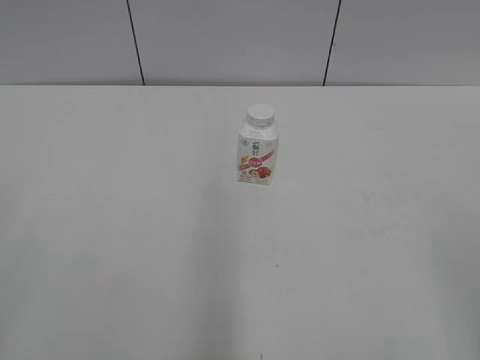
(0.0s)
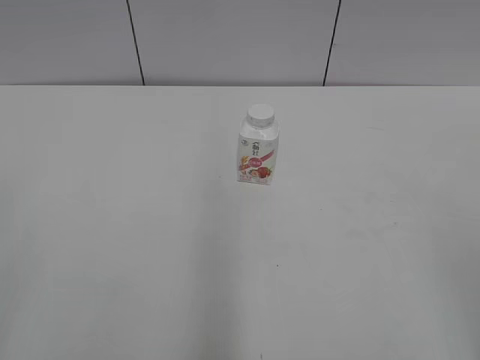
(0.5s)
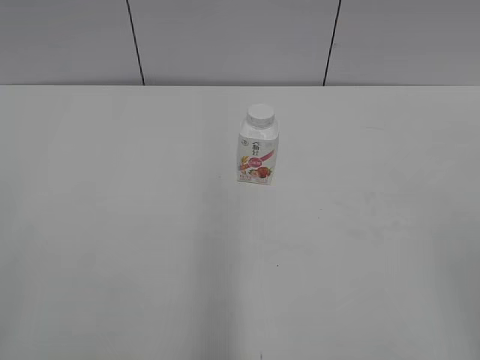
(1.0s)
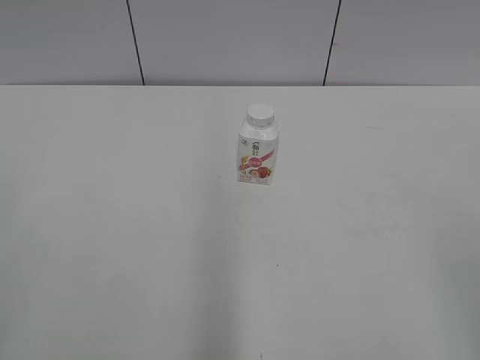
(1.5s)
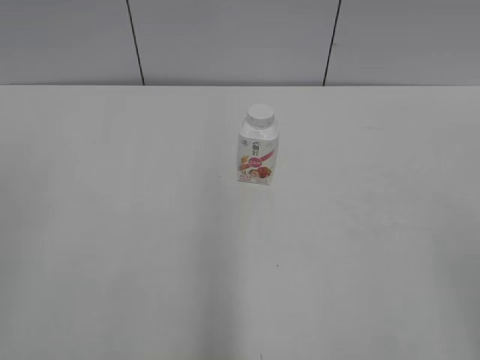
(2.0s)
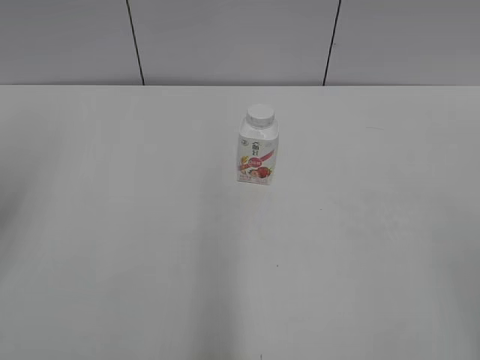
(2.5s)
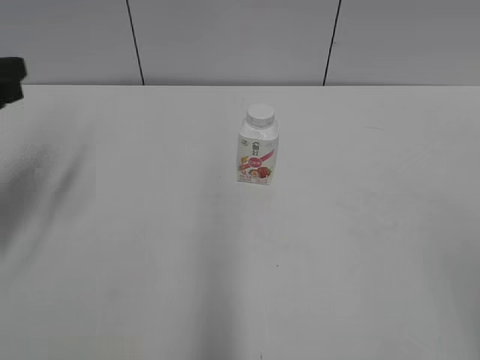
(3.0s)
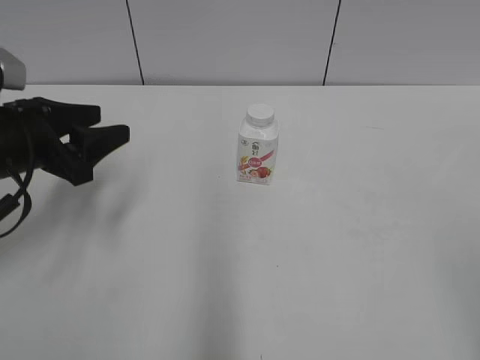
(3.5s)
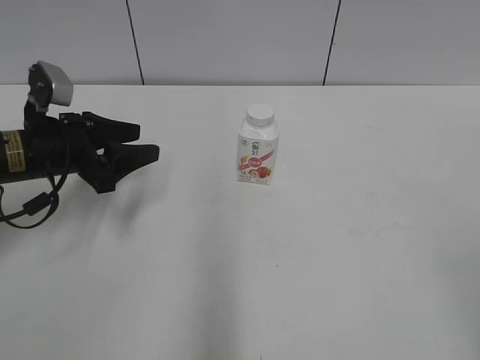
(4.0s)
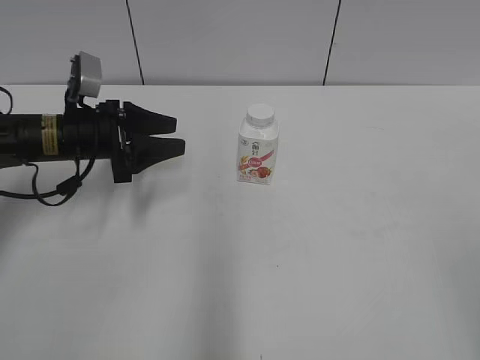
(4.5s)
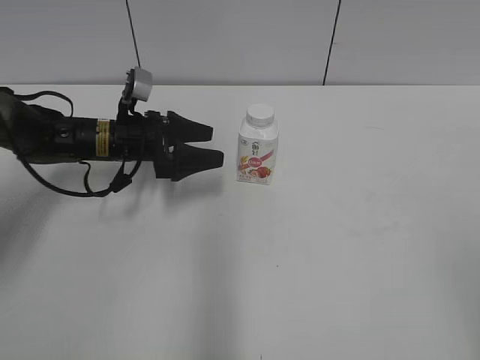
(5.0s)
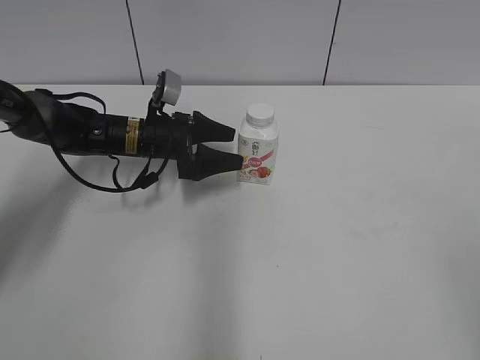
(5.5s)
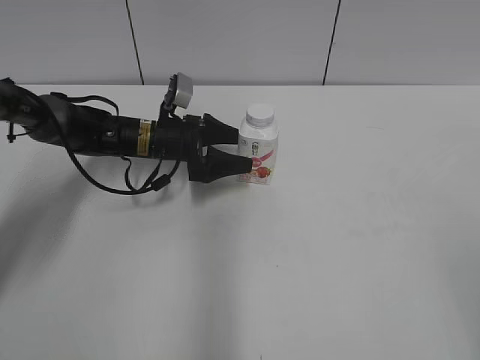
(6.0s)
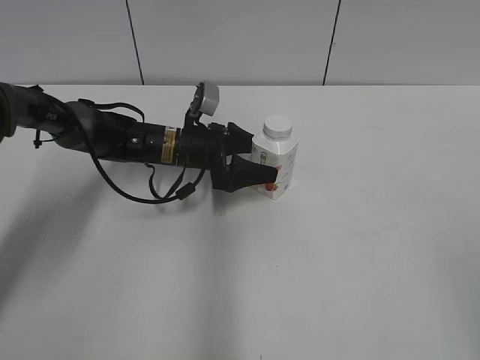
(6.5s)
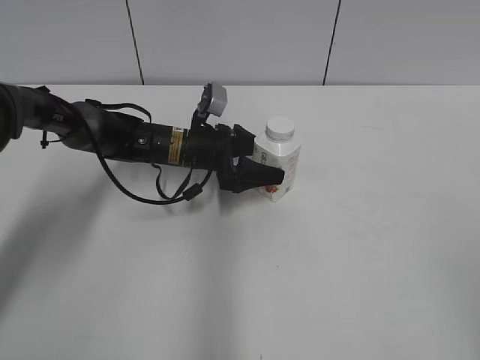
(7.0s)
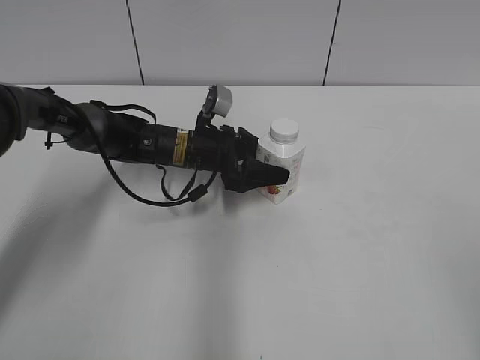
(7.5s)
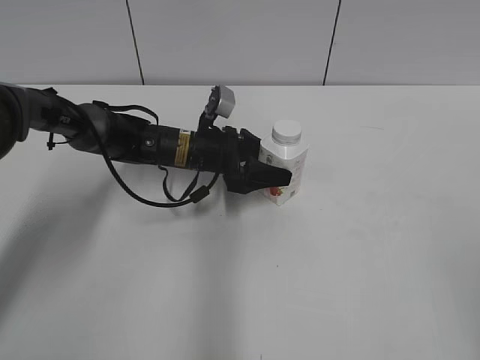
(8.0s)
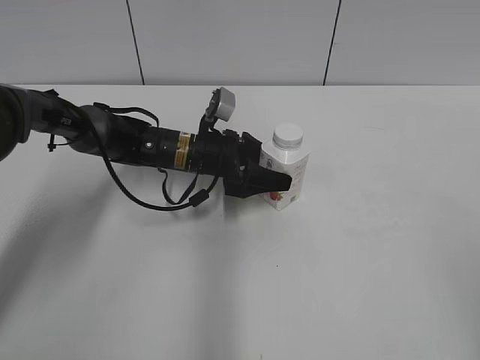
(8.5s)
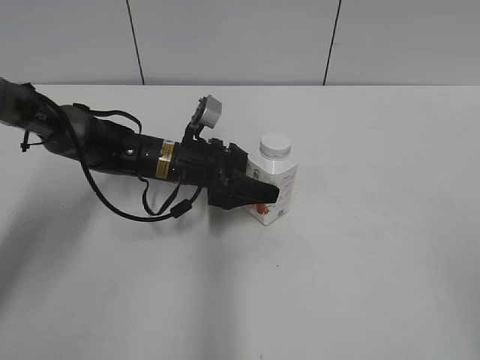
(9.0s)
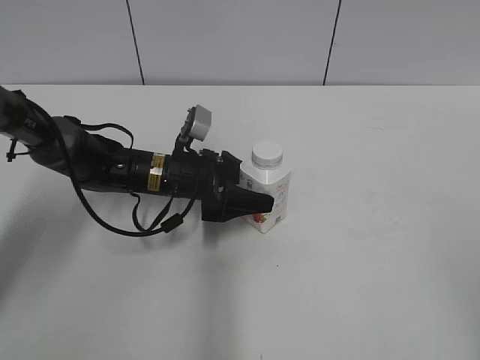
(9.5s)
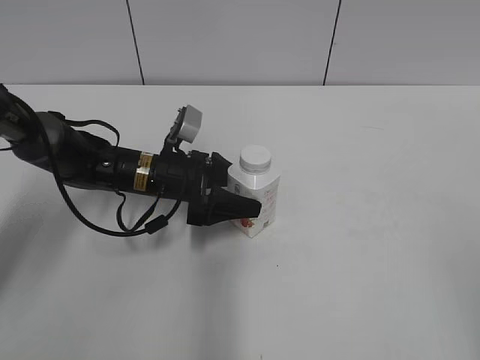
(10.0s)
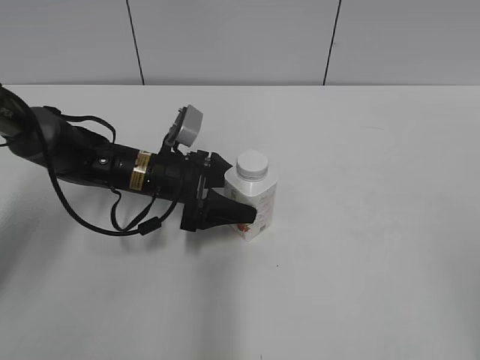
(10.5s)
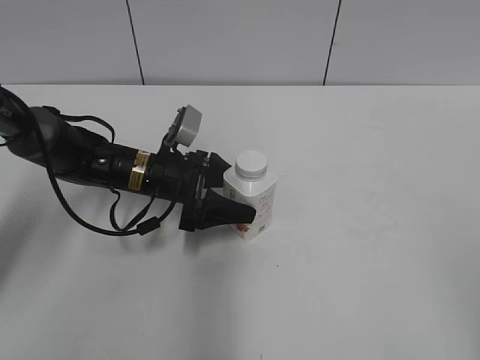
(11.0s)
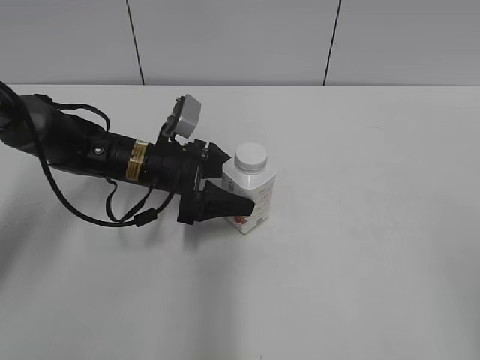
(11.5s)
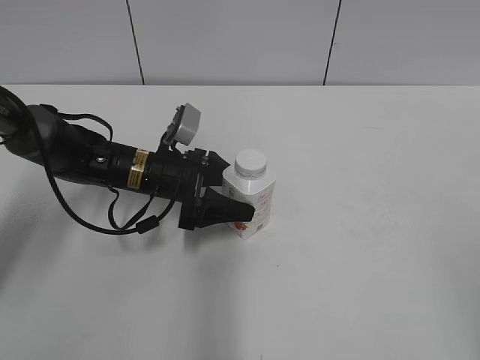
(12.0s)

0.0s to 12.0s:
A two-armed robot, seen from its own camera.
Step, 0.0s to 6.5s: Grab the Yili Changqing with the left hand.
2.0s to 4.0s: The left gripper heads forward and downward, covering approximately 35 cm.
4.0s to 6.0s: The left gripper moves forward, to the right and downward, roughly 20 cm, and opens.
6.0s to 8.0s: The left gripper heads to the right, covering roughly 5 cm.
8.0s to 10.0s: The left gripper travels backward by about 5 cm.
10.0s to 12.0s: There are only small adjustments of the grippers.

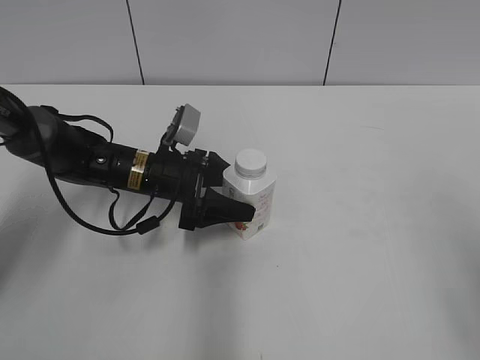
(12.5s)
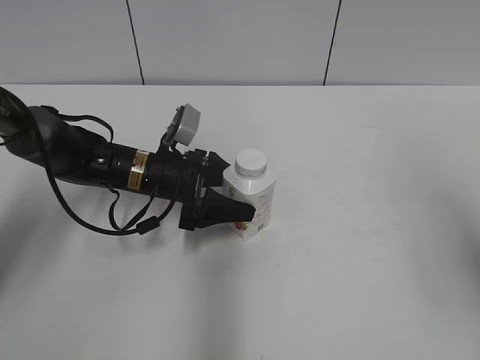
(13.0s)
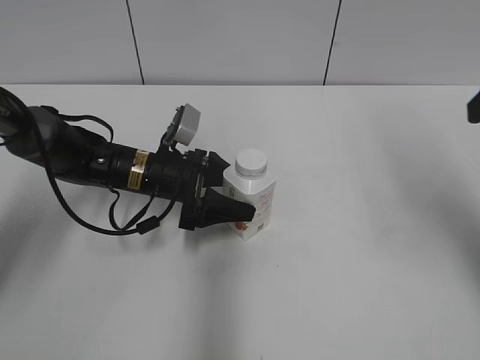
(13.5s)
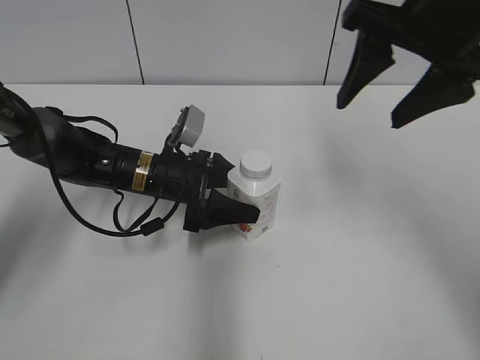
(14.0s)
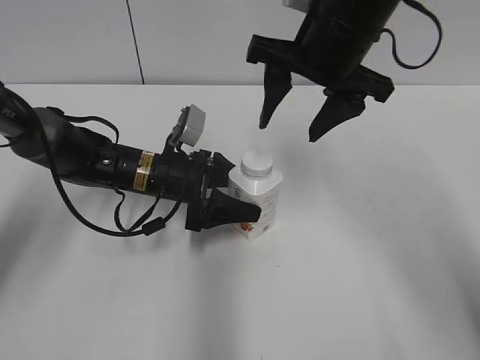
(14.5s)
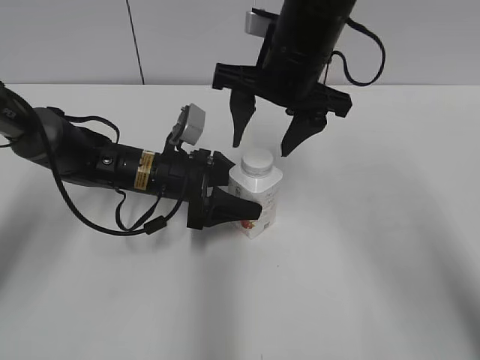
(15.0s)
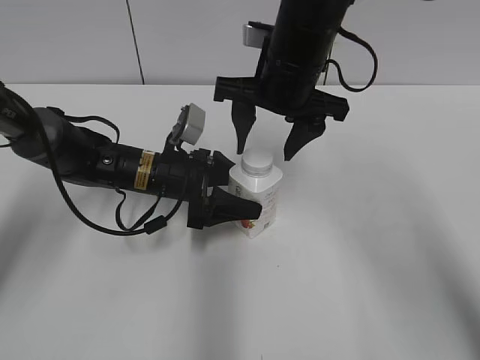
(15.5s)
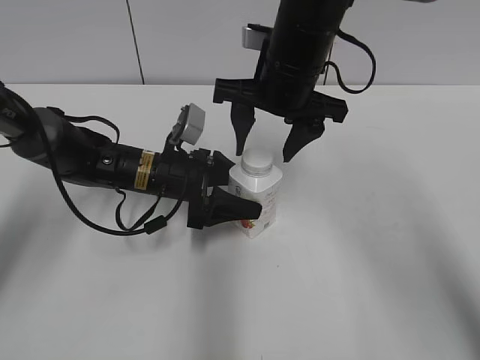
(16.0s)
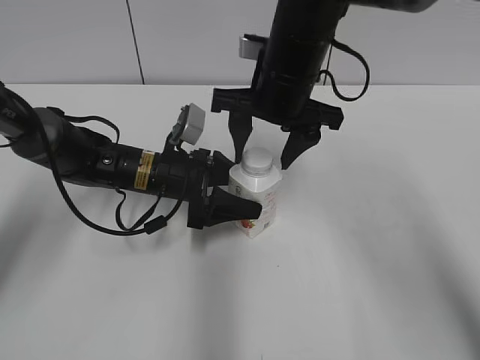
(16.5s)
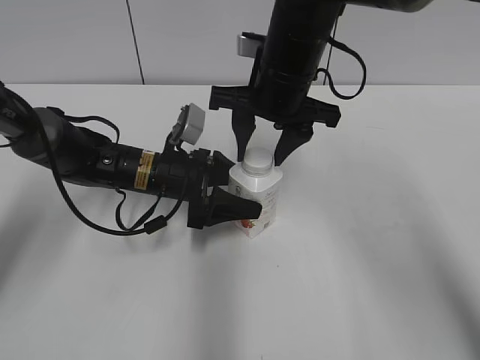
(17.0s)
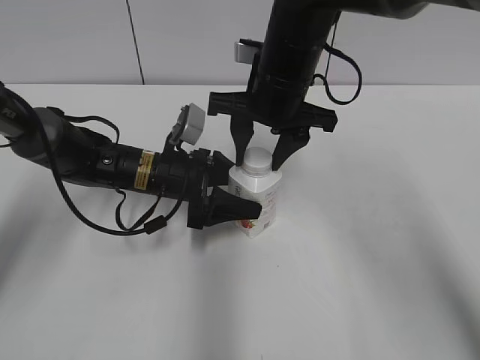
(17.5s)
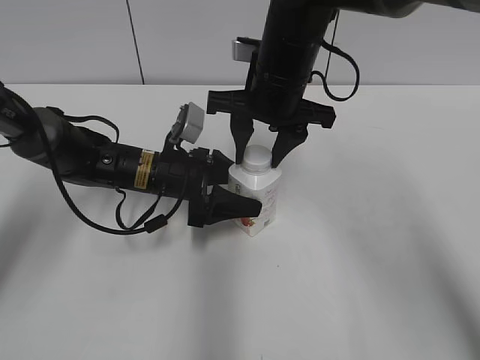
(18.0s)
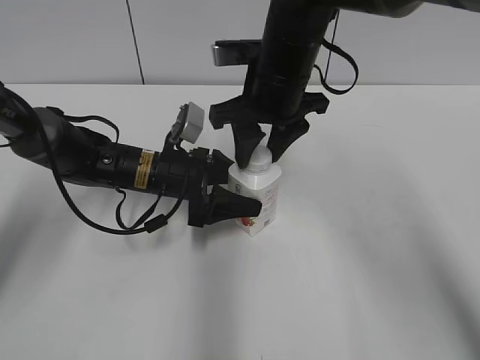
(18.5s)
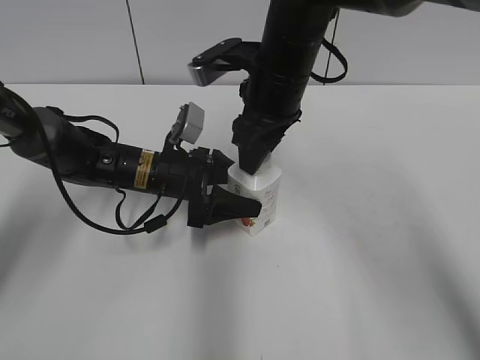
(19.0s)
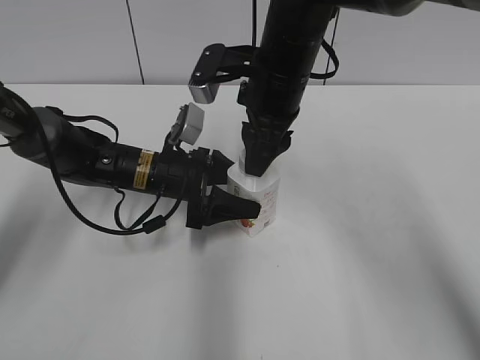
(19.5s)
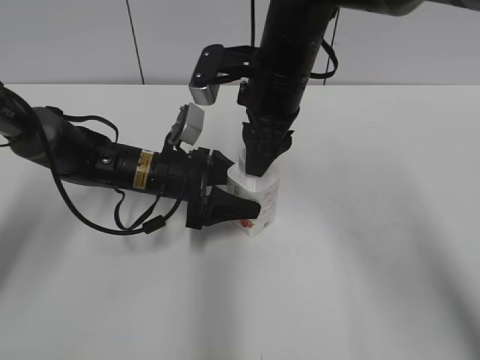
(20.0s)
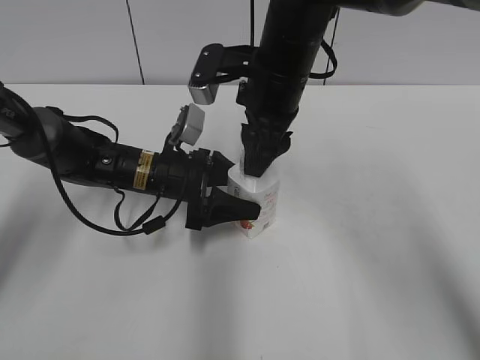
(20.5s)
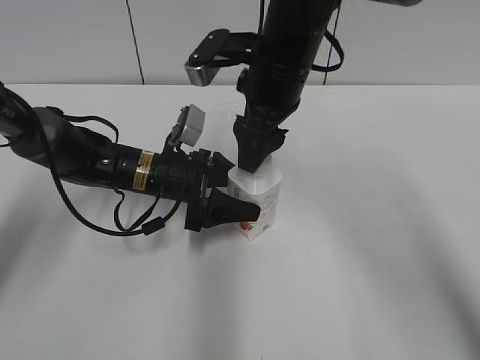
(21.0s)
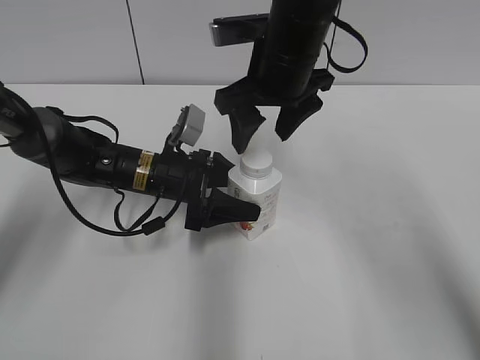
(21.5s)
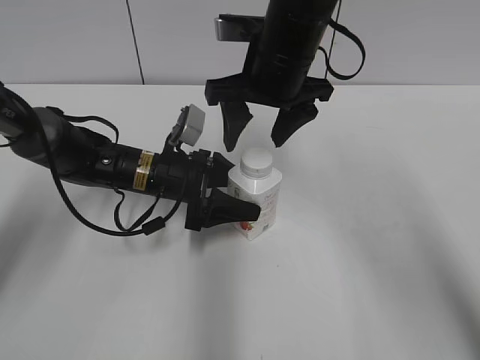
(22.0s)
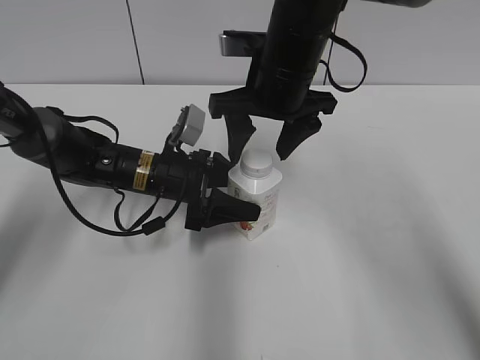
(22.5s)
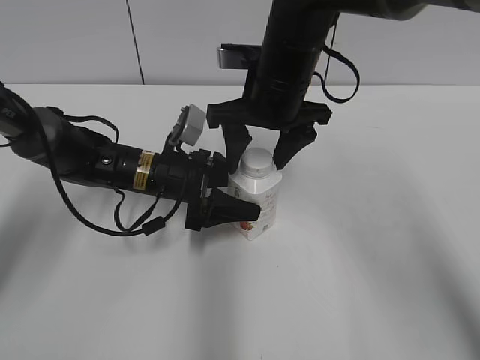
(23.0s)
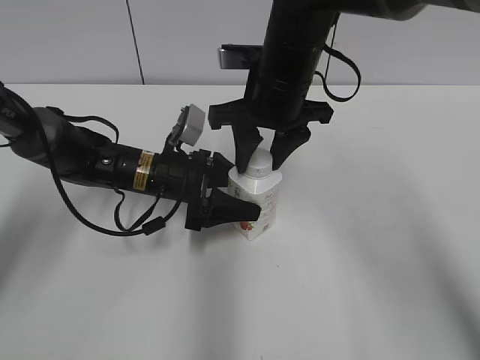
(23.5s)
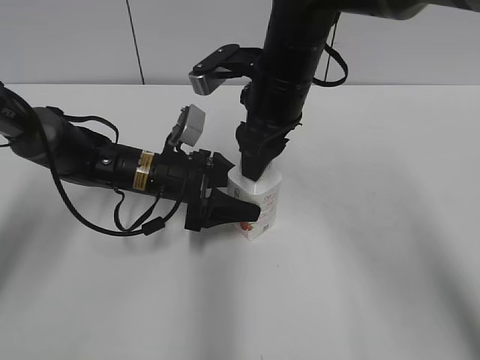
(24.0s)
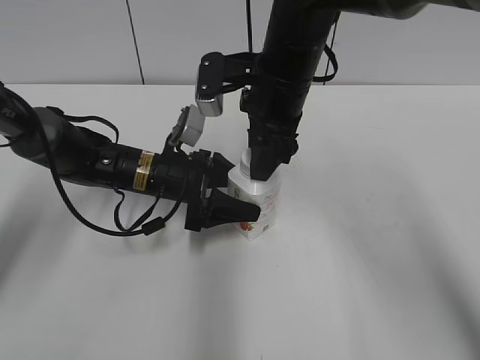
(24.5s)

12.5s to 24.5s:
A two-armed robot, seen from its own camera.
12.5s to 14.5s: The right gripper moves forward and to the left, approximately 35 cm.
14.5s to 16.5s: The right gripper shifts about 5 cm downward.
16.5s to 18.5s: The right gripper closes up.
20.5s to 22.5s: The right gripper opens up.
22.5s to 24.5s: The right gripper closes.

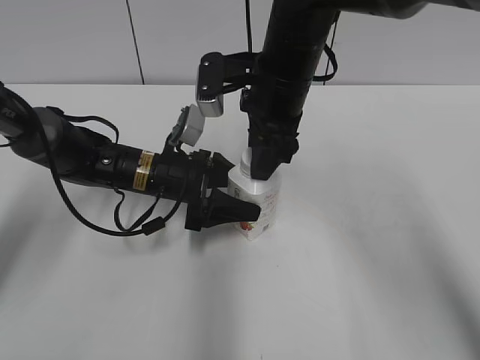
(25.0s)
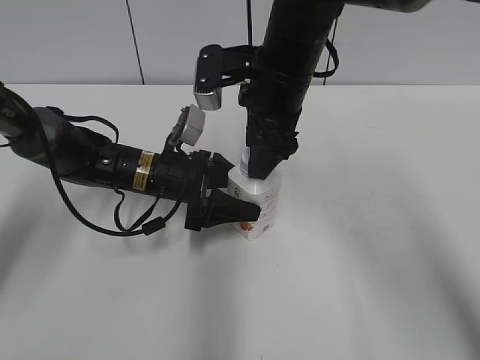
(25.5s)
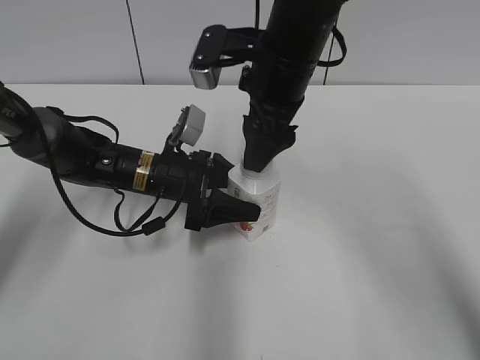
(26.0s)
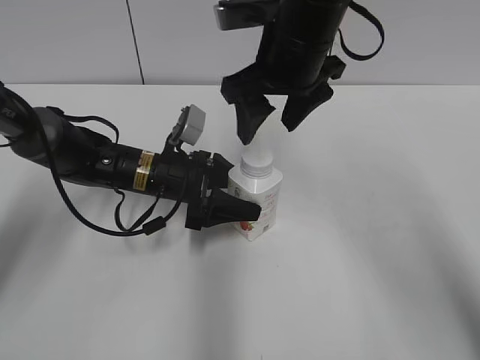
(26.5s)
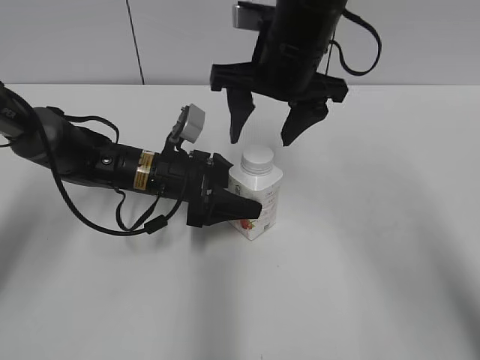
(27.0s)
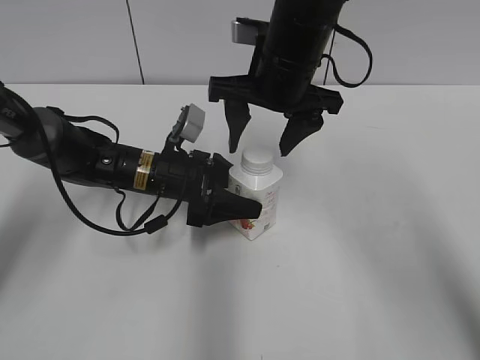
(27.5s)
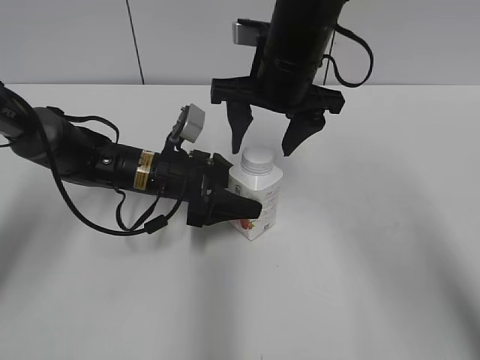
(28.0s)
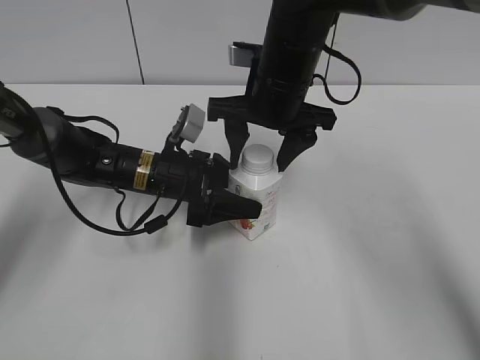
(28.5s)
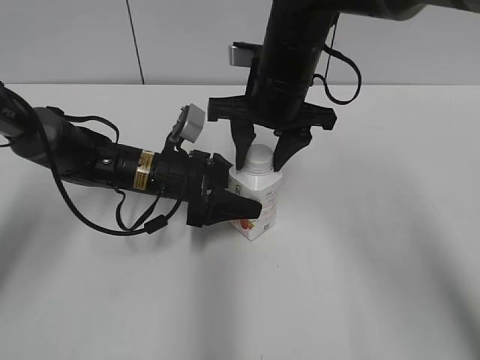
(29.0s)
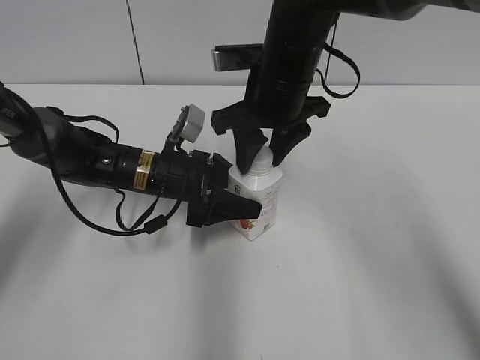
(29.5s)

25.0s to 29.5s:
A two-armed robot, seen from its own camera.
25.0s to 27.0s: The right gripper opens.
27.0s to 29.5s: The right gripper closes up.
